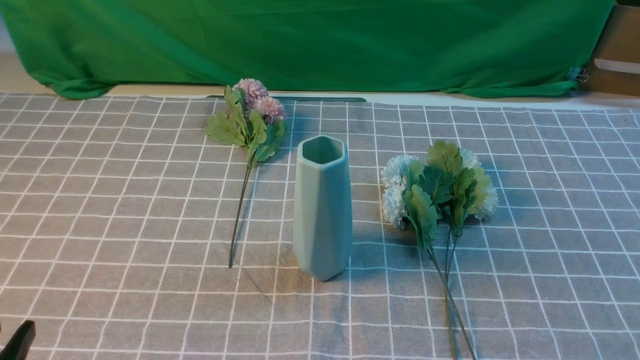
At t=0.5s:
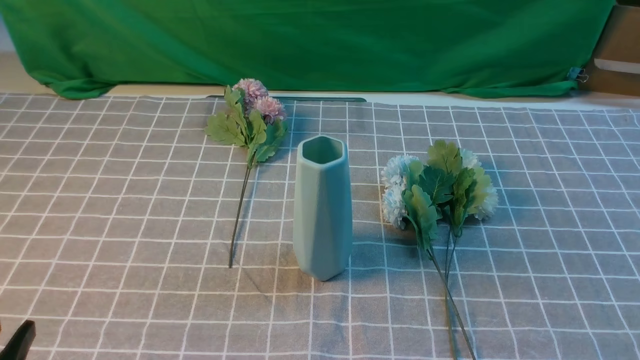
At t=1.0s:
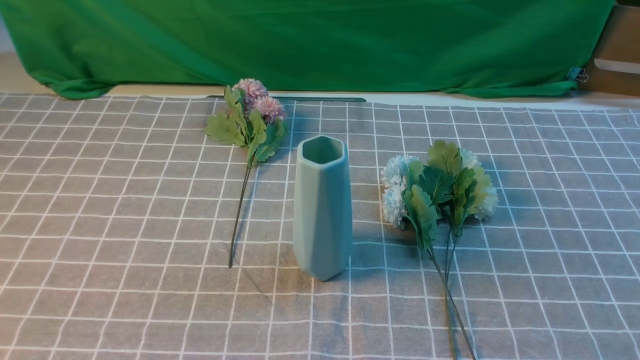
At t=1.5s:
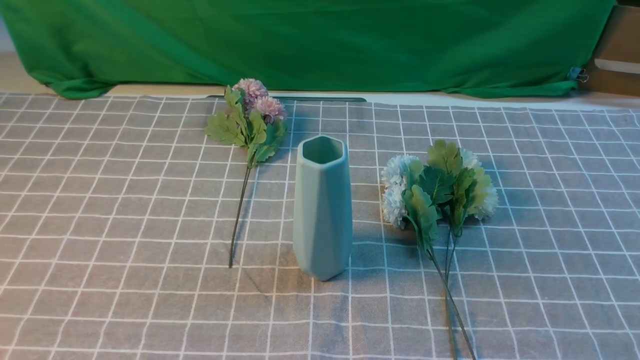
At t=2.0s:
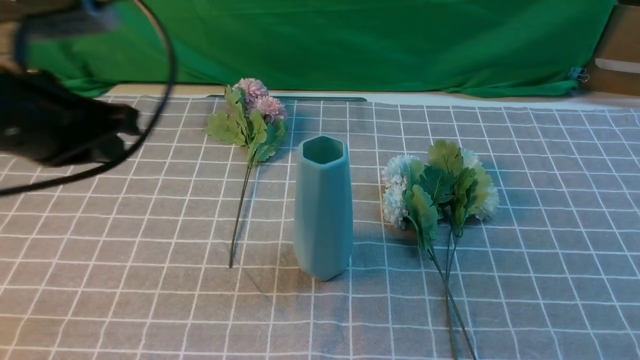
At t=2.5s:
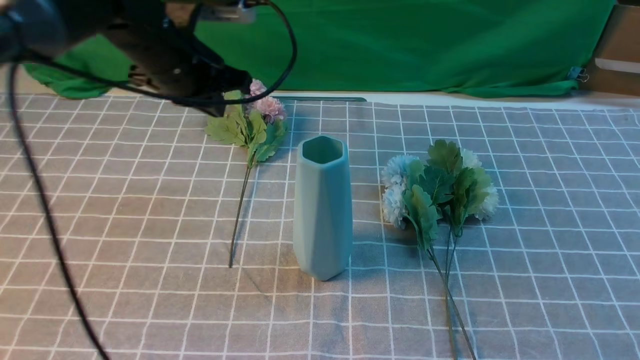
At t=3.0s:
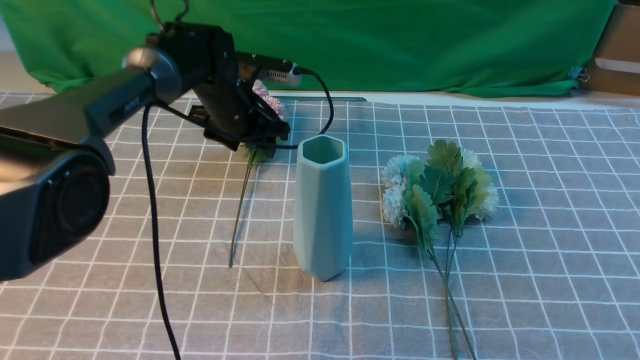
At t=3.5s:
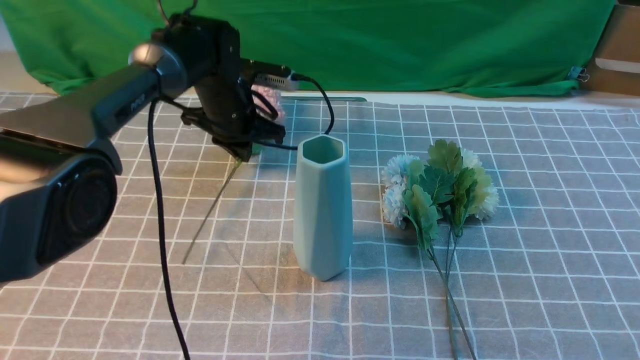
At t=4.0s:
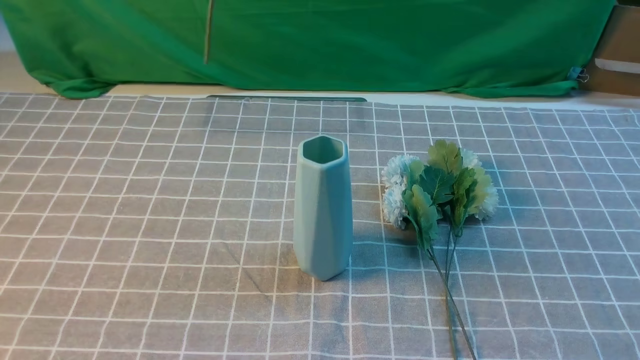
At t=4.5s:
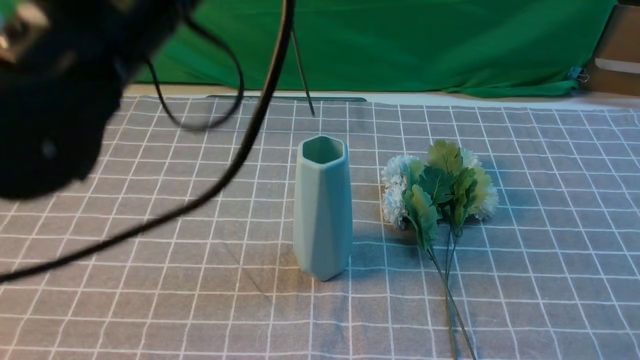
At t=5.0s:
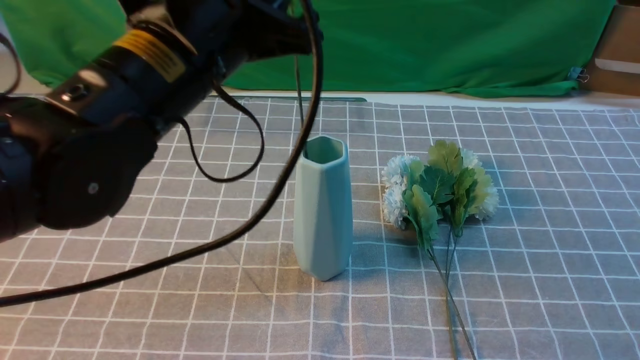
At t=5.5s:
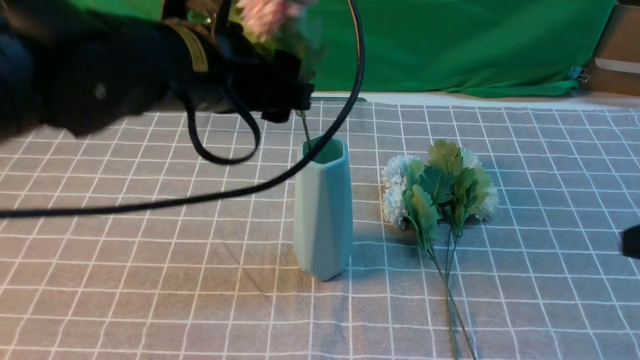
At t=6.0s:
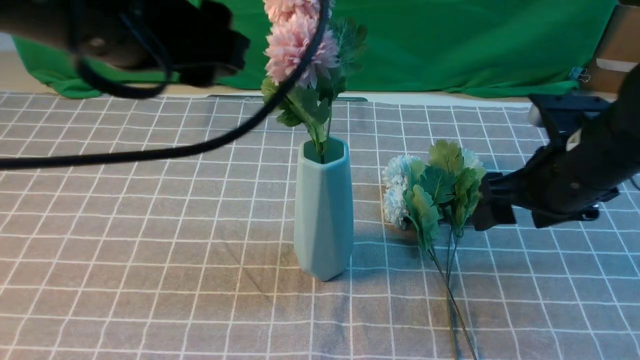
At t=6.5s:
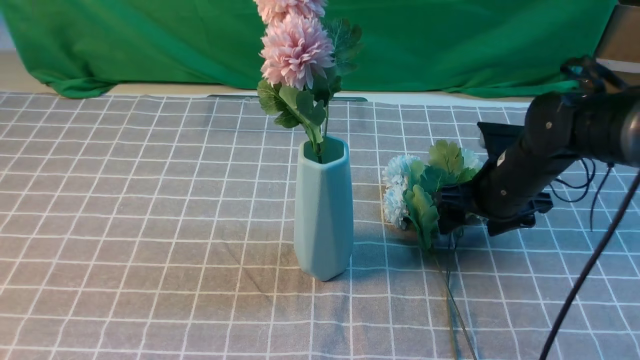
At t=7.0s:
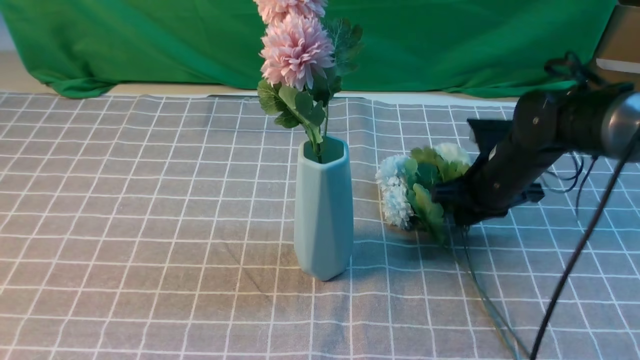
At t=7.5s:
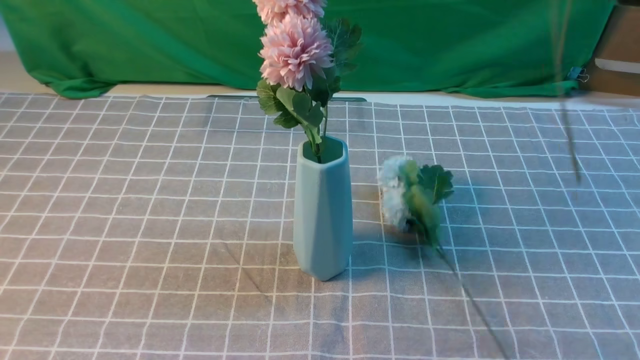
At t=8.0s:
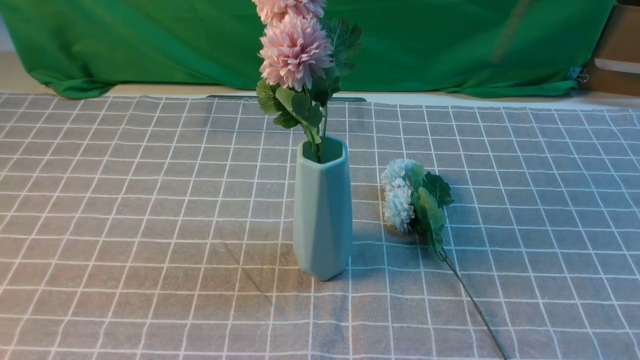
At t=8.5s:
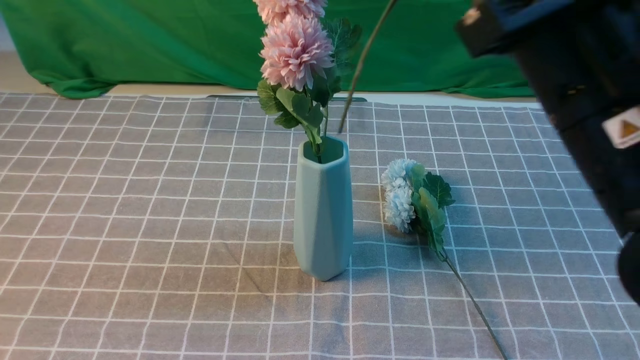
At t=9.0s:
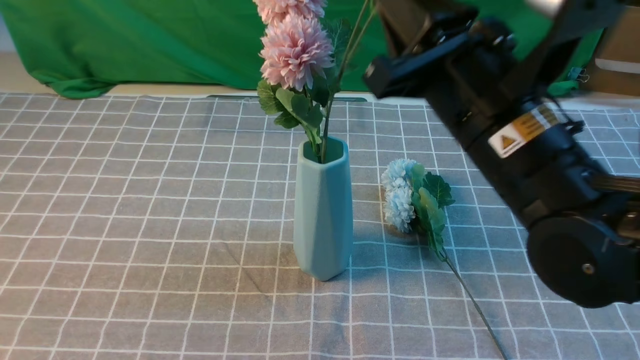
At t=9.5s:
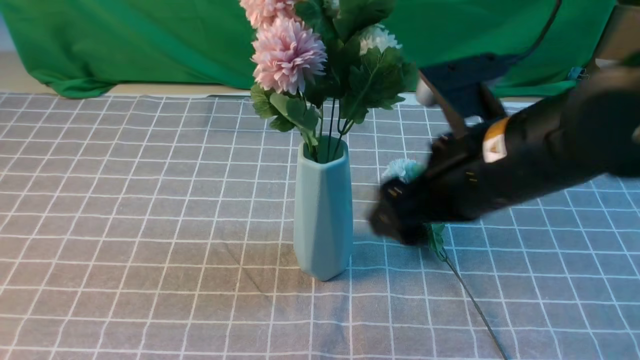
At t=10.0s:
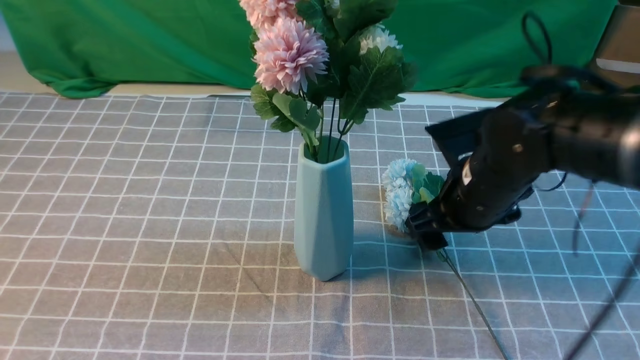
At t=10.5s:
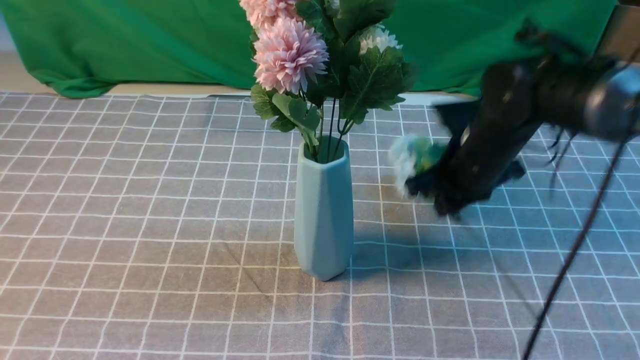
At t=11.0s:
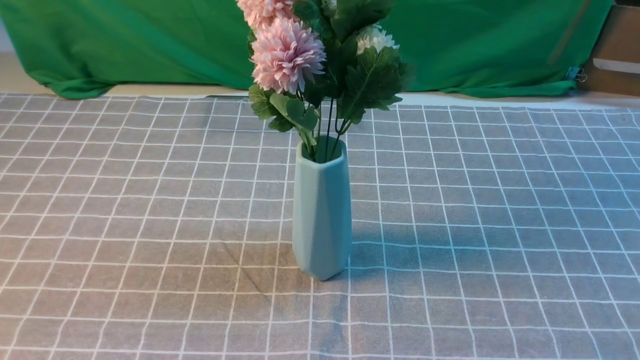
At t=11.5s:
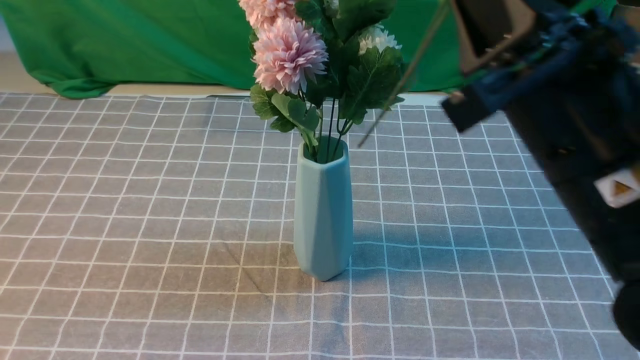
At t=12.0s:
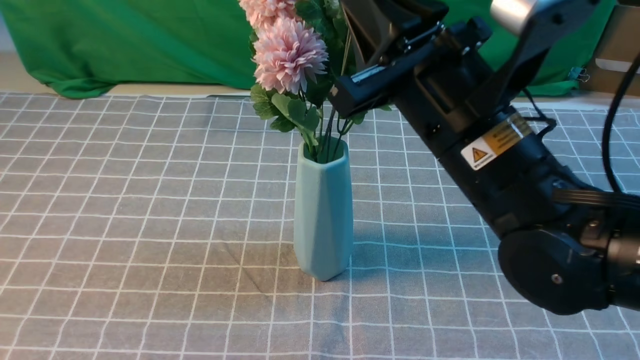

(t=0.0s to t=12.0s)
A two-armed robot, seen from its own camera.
Task of the whole recording: insert the flowers into the vase on the table with the grey tablecloth.
Step, t=0.0s - t=3.0s: use the left arm to grab a bunch of fresh flowers.
Step, t=4.0s - t=5.5s: use the left arm to insert the flowers into the vase.
Step, t=6.0s - t=7.0s: use the right arm to grab a bunch of fresh flowers.
Step, t=7.5s - t=9.0s: use the right arm to insert the flowers into the vase.
Step, t=9.5s - t=10.0s: use the right arm to grab a bunch of fresh flowers.
t=0.0s - t=2.0s: The left gripper travels forward and upward by about 25 cm, and closes its fingers.
t=2.0s - t=4.0s: The left gripper travels upward, to the right and forward by some 20 cm, and opens, then closes again. The right gripper moves upward and forward, some 15 cm.
t=4.0s - t=6.0s: The left gripper is displaced backward and downward by about 15 cm, and opens its fingers. The right gripper shifts about 25 cm forward and downward, and opens its fingers.
t=6.0s - t=8.0s: The left gripper goes some 20 cm backward and to the left, and closes its fingers; the right gripper travels upward and backward by roughly 25 cm, and closes its fingers.
t=8.0s - t=10.0s: The right gripper travels downward and forward by some 30 cm, and opens up.
t=10.0s - t=12.0s: The right gripper travels upward and backward by roughly 15 cm, and closes its fingers.

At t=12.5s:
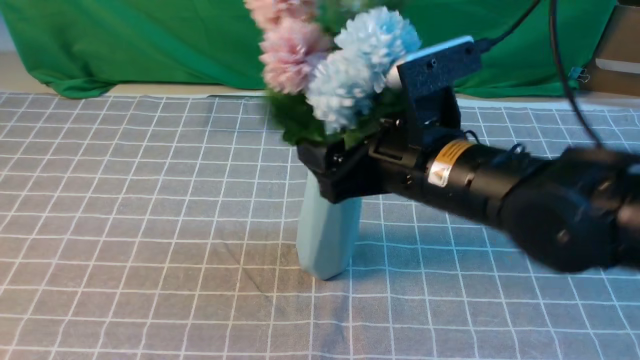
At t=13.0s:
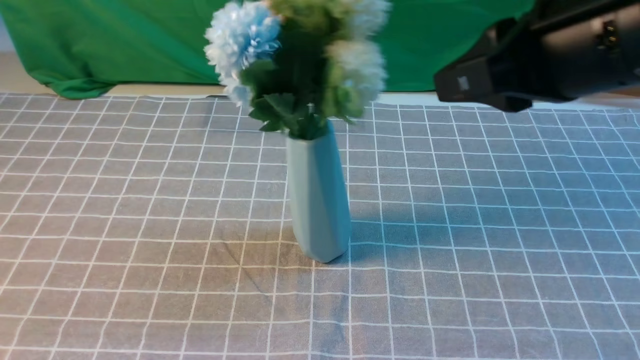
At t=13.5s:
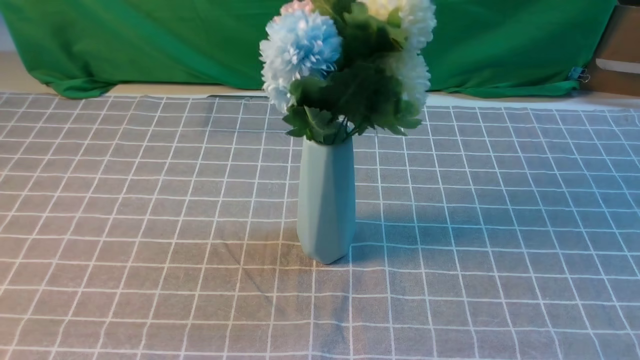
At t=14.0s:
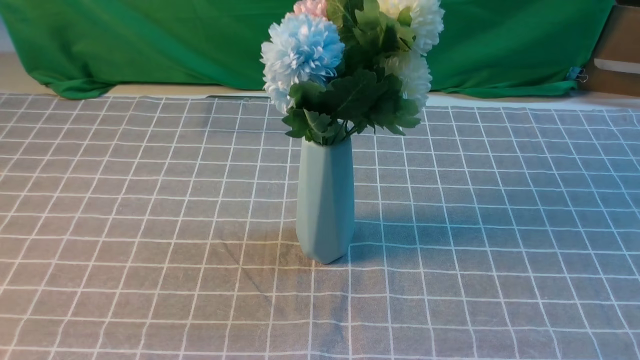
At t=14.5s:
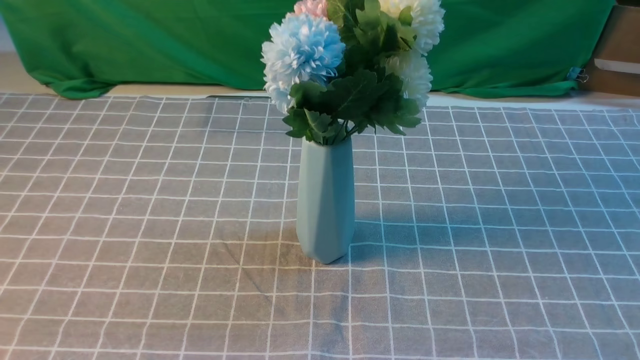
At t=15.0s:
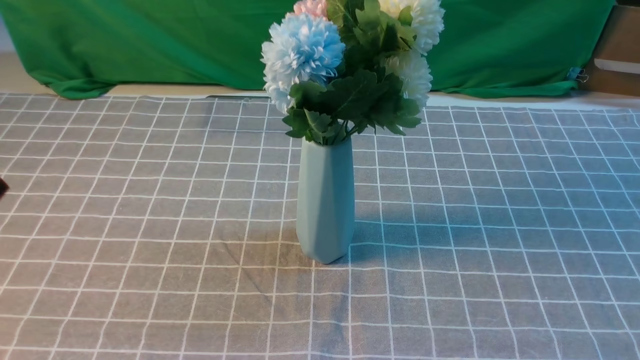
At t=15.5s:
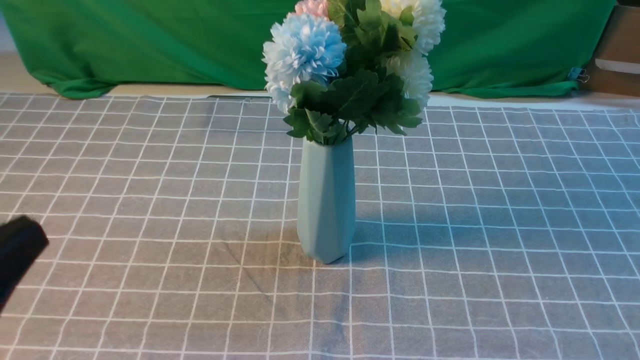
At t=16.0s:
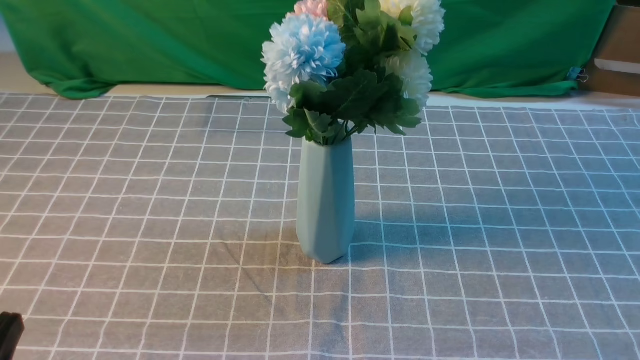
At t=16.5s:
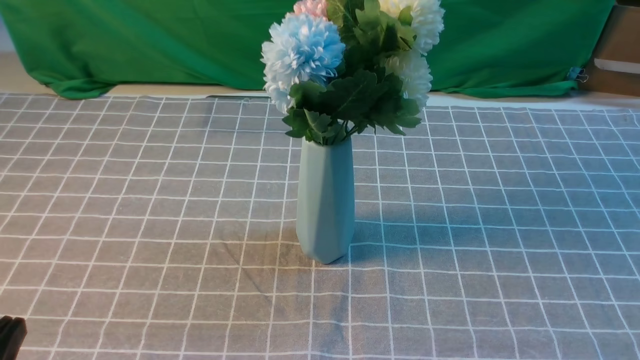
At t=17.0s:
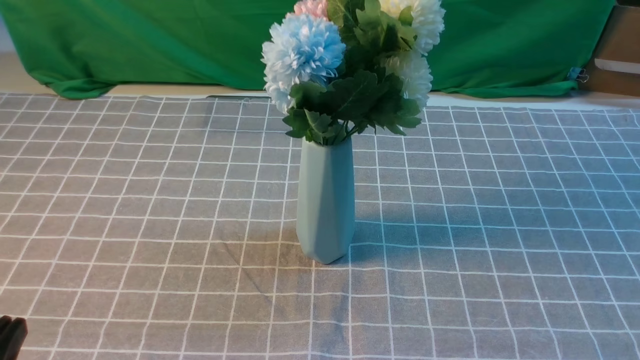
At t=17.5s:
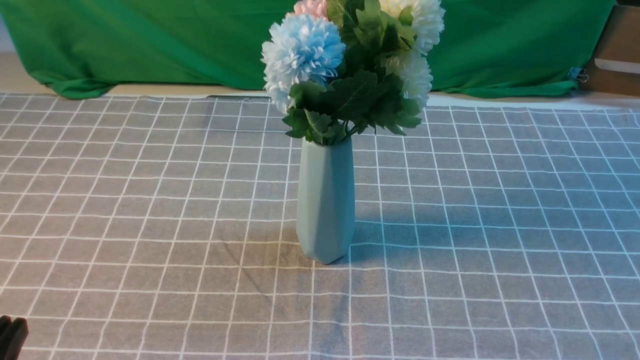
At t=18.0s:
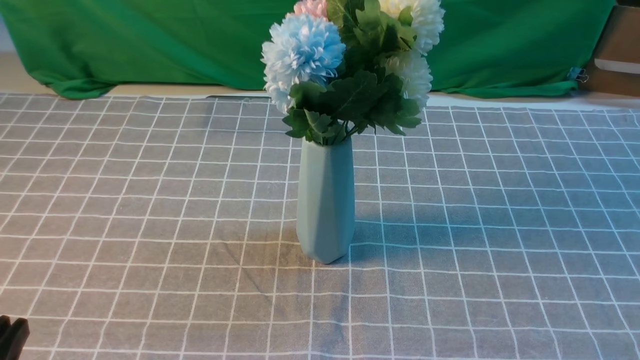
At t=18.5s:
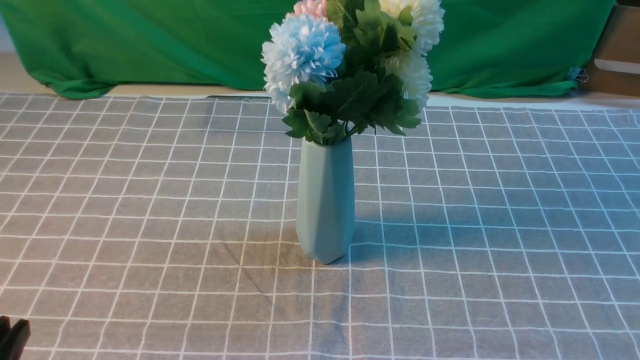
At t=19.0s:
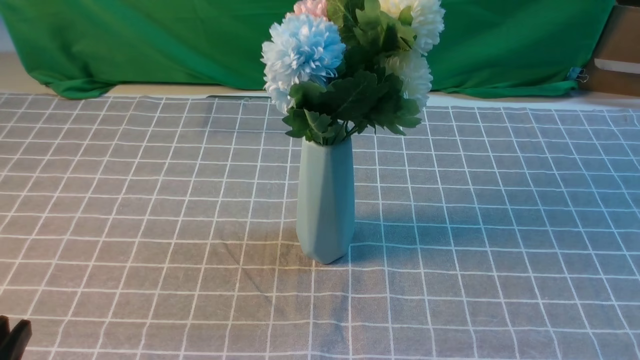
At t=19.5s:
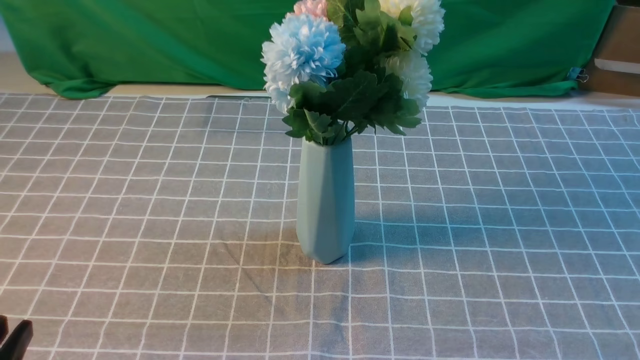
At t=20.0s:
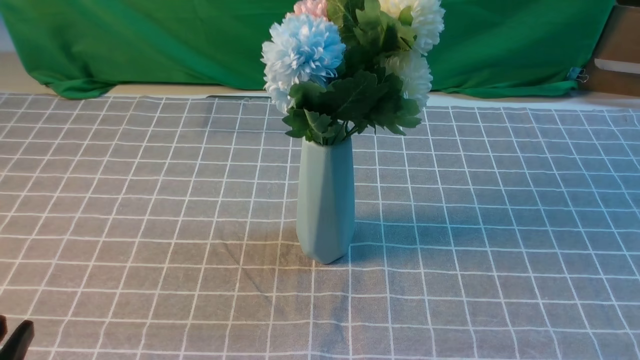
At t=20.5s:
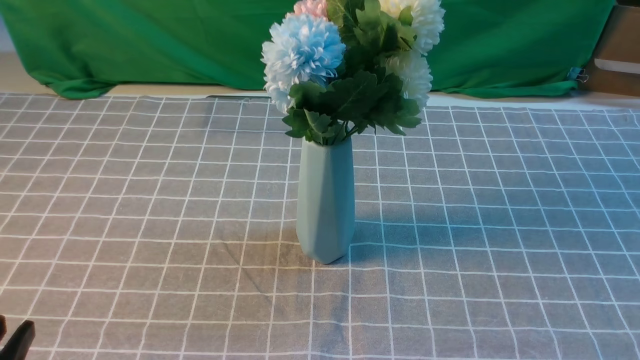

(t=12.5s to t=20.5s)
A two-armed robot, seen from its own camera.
Task of the whole recording: insert the flowers into the vase on the table with the grey tablecloth.
t=12.5s - t=14.5s: The left gripper changes place by approximately 5 cm, while the right gripper is displaced backward and to the right by some 35 cm, and closes.
t=18.5s - t=20.5s: The two grippers keep their place.
